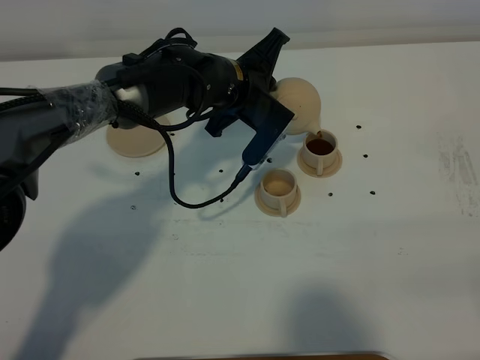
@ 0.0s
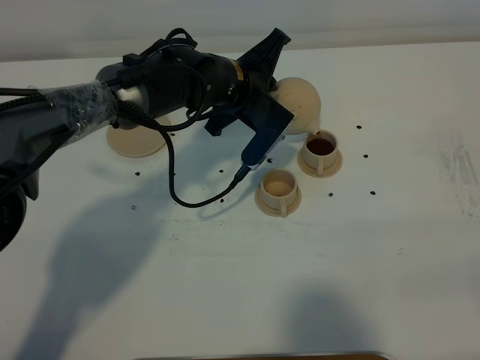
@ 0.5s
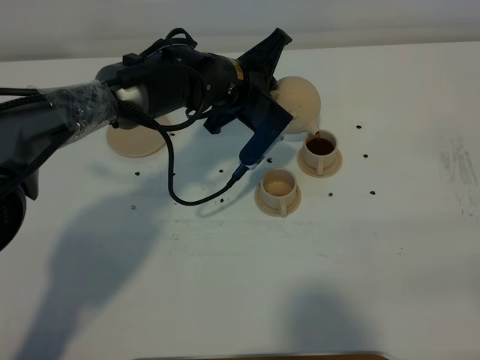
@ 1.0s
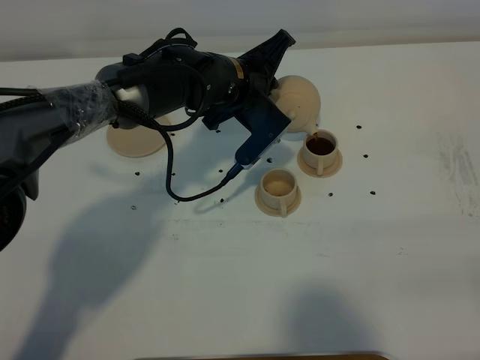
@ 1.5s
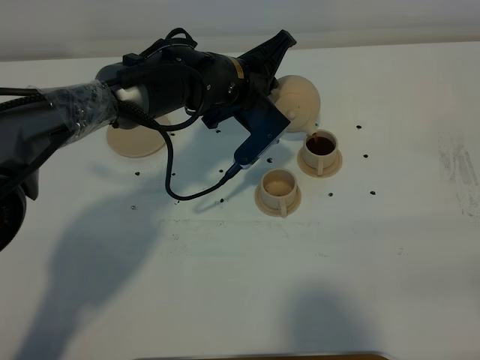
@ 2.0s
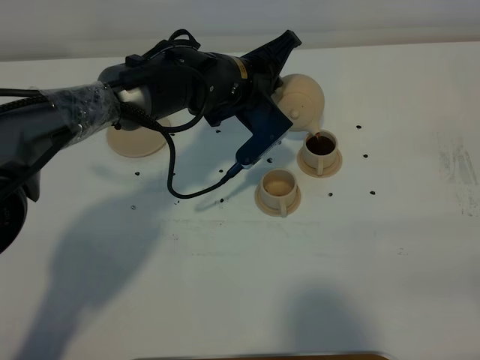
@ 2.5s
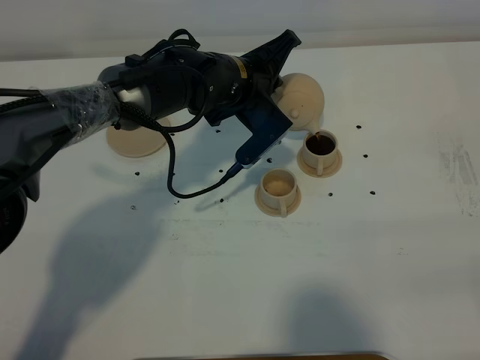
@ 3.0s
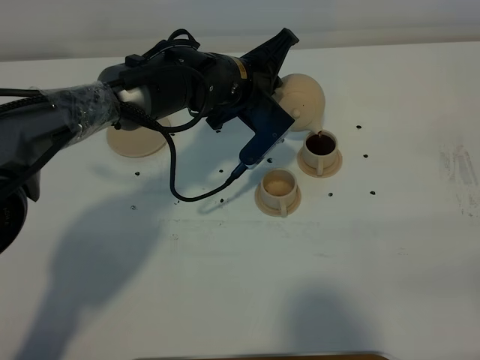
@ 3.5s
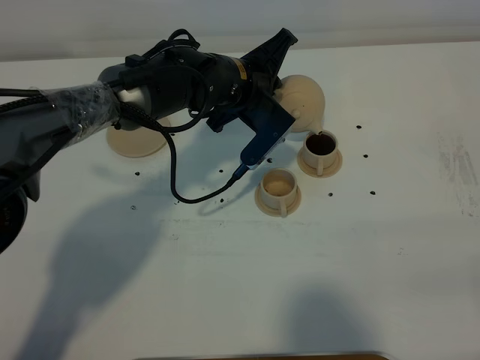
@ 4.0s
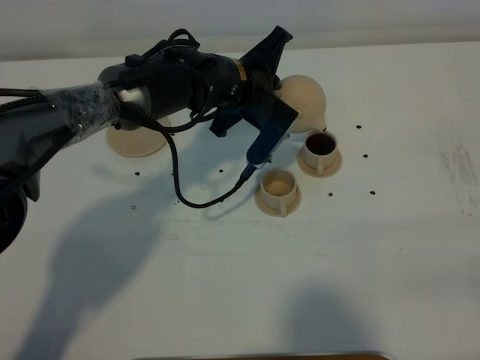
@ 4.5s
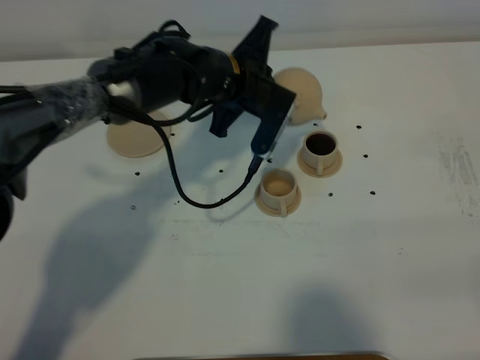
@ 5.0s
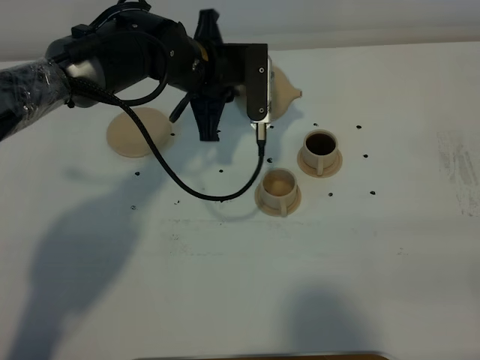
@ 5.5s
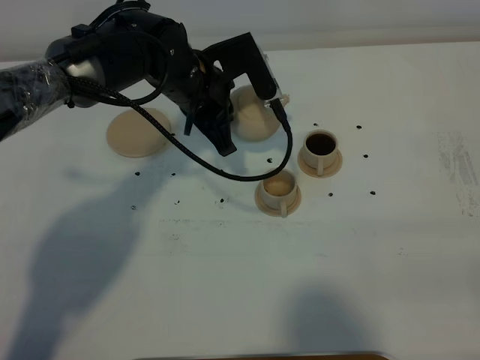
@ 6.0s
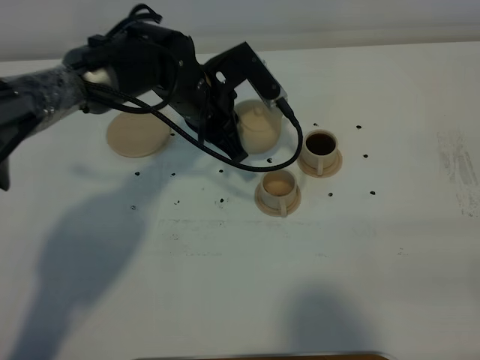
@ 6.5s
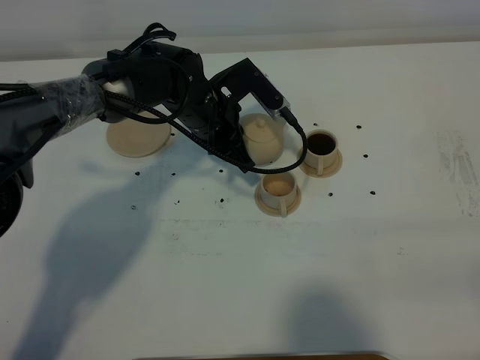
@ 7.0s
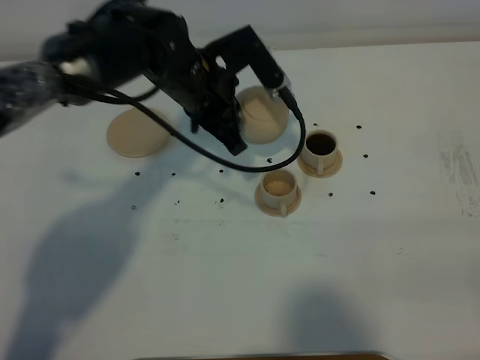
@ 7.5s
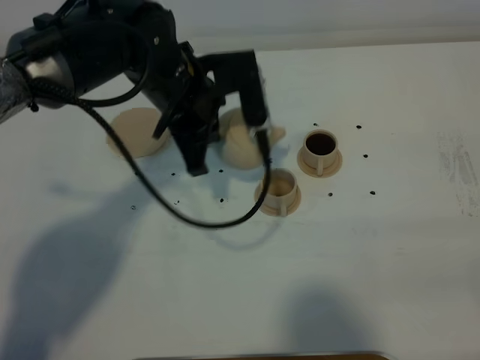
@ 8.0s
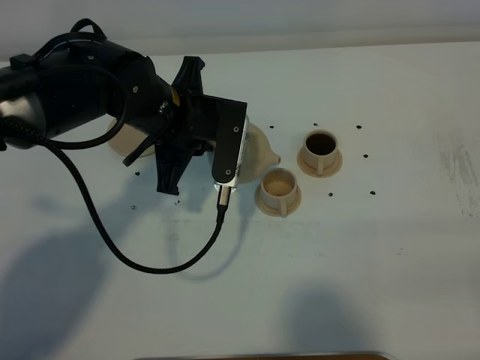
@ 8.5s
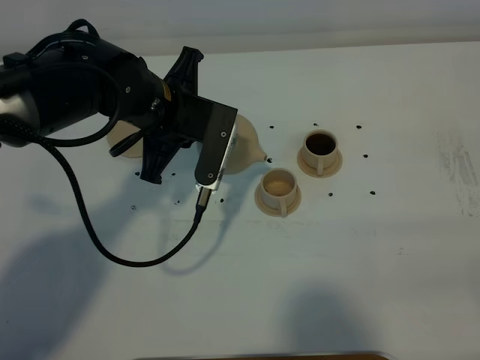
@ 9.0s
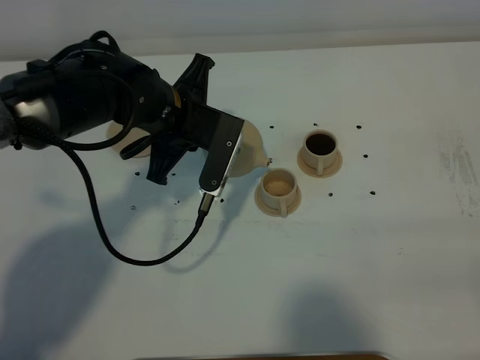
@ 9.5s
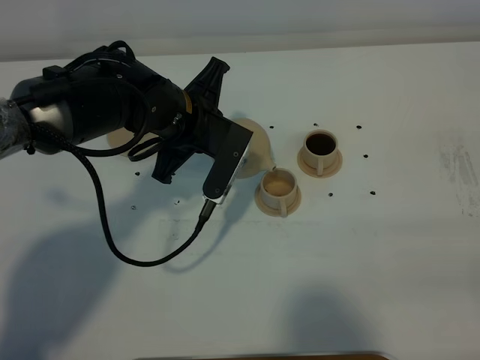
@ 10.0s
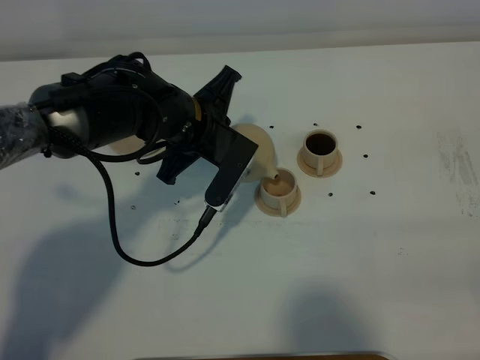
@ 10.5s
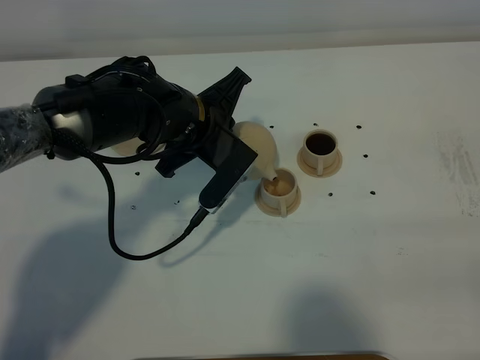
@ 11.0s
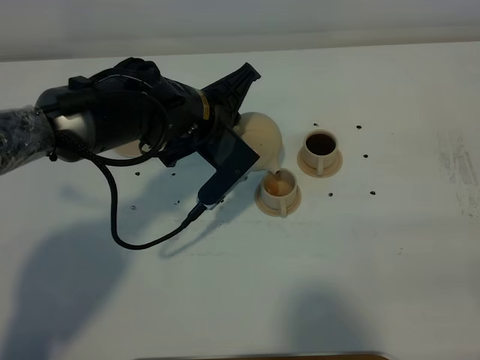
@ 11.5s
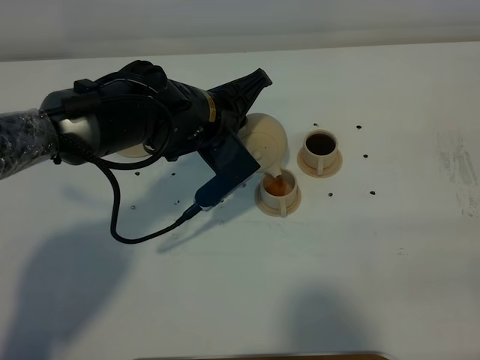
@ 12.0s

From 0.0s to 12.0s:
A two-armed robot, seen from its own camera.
Task of the whole recording: grasp the brown teapot and pour the tea into the two brown teacups one by one, put the brown teapot back in its original place.
From 0.0s to 2.0s: The grippers stay close to where they were, moving slightly.
From 2.0s to 4.0s: Neither gripper changes place.
From 4.0s to 6.0s: The left gripper changes place by roughly 5 cm.
From 6.0s to 8.0s: The left gripper shifts by some 5 cm.

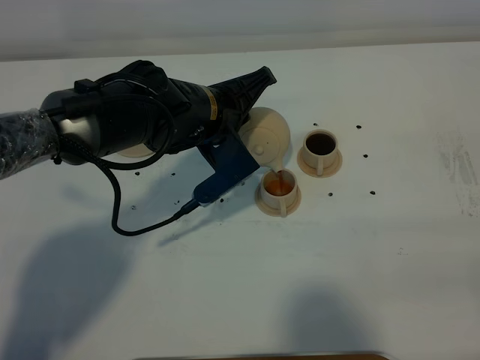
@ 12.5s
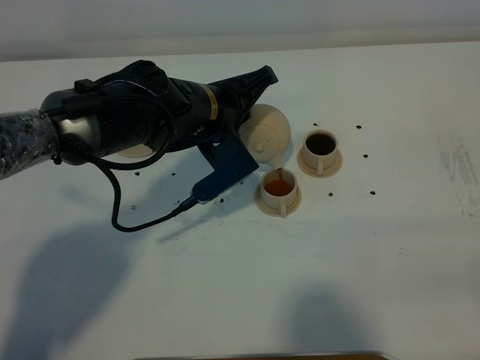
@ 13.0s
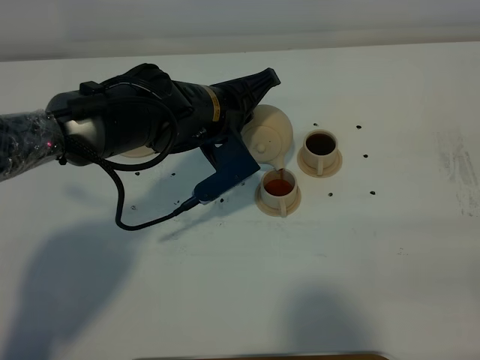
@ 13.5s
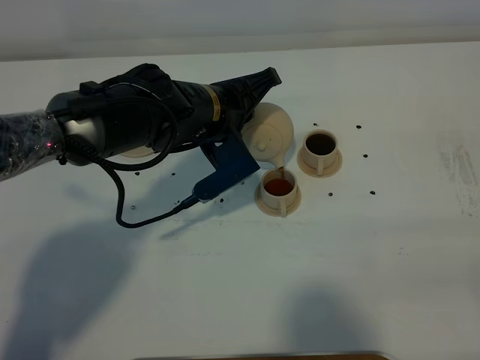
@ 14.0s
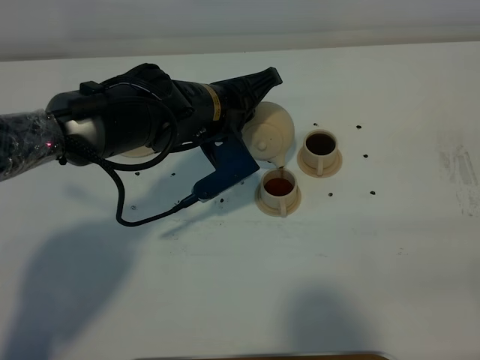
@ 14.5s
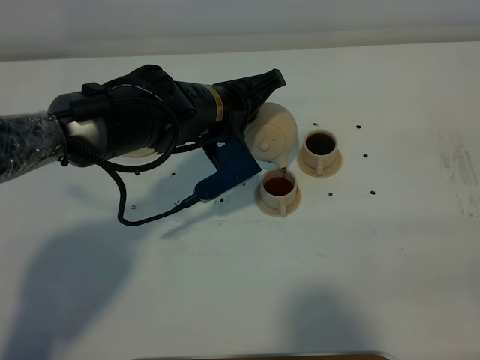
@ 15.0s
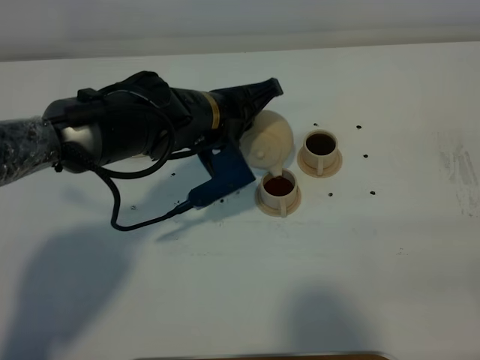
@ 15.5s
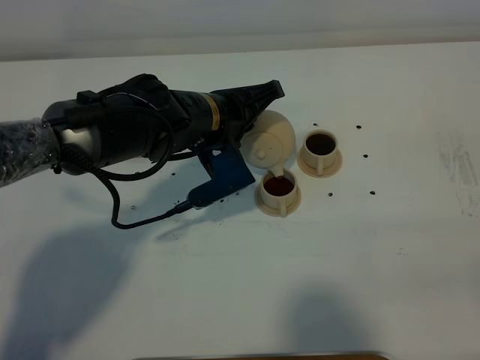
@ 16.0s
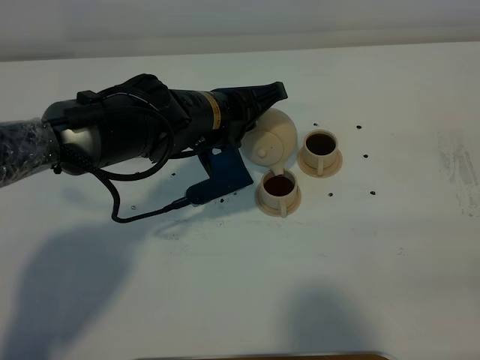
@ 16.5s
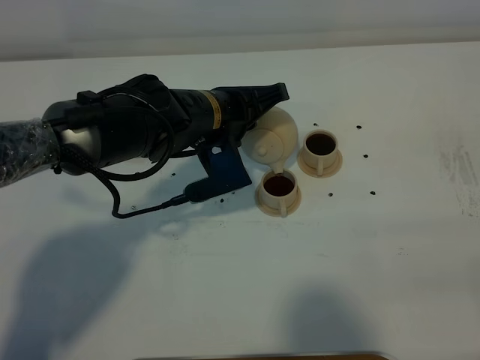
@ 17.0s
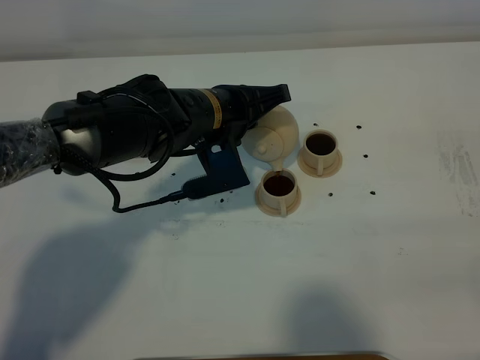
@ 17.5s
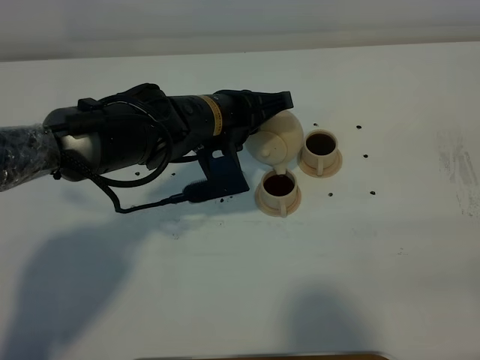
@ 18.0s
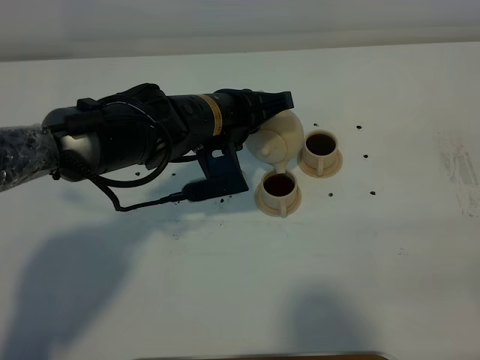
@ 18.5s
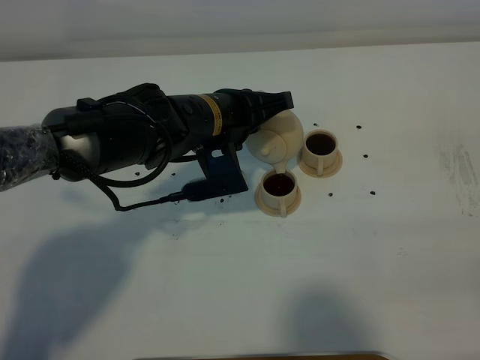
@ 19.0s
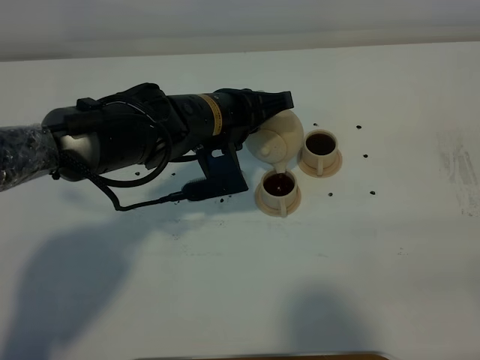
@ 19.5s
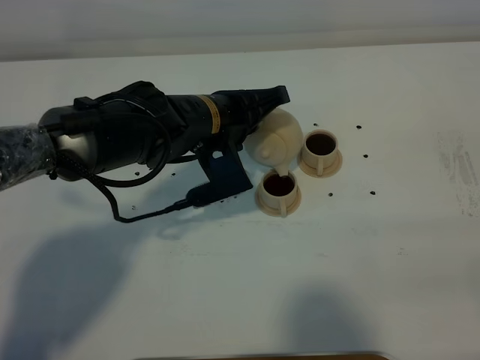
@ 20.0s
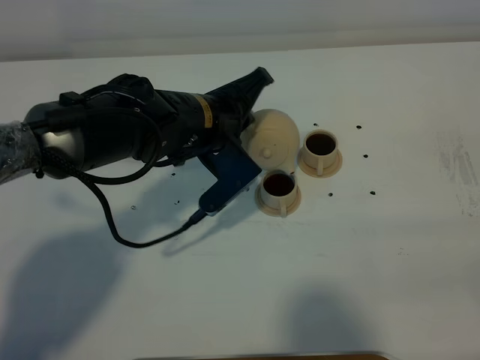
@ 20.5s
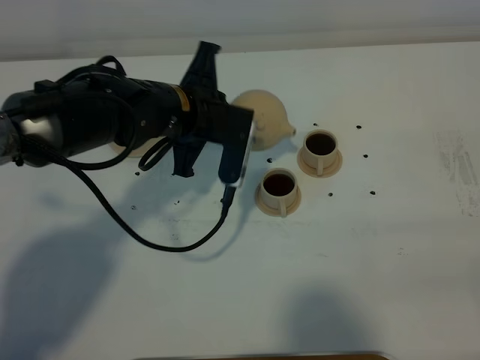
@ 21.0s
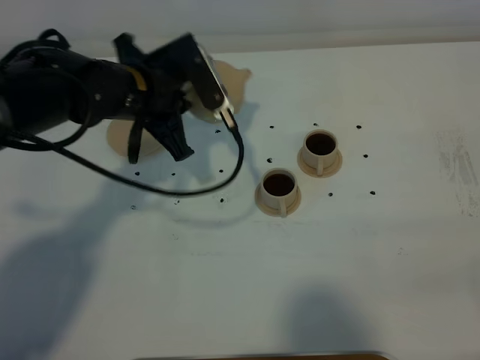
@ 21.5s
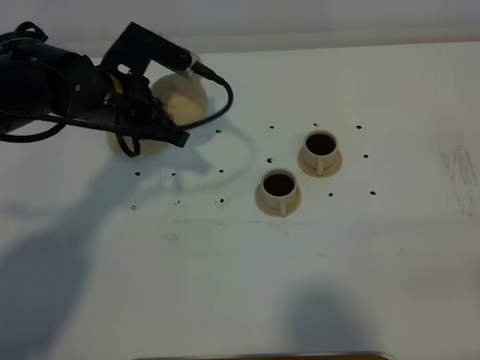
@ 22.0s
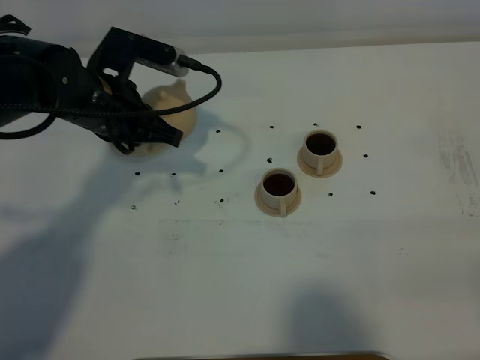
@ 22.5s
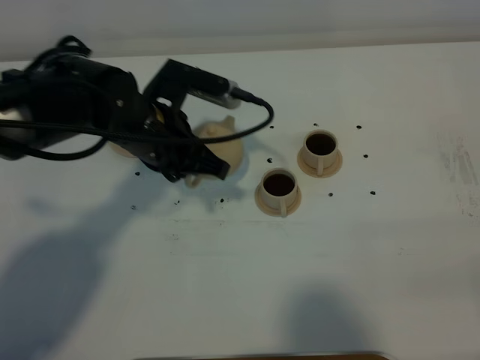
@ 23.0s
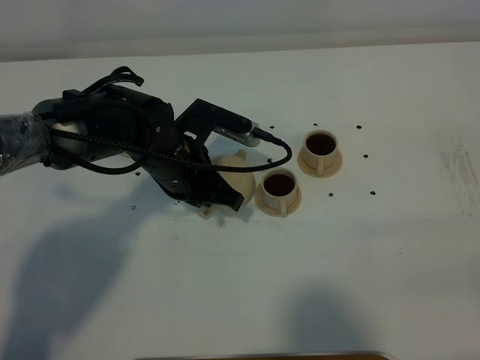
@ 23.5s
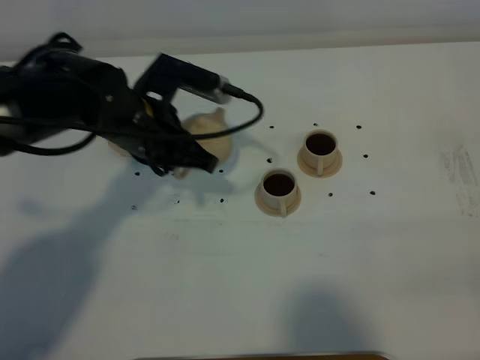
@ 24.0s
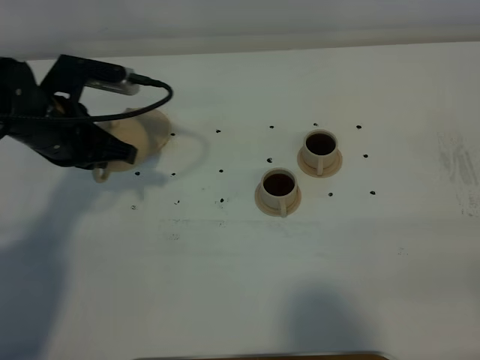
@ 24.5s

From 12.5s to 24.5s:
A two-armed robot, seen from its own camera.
Task of the whole recording: grasp the brown teapot and pour the tea into the two brown teacups one by one, put the brown teapot back in its original place.
Step, from 12.5s to 20.0s: Pour tea into the teacup with the left gripper.
From 12.5s to 16.5s: The grippers stay close to where they were, moving slightly.
From 16.5s to 18.5s: The grippers move only a little.
From 20.5s to 22.5s: The left gripper moves to the left, approximately 10 cm.
From 22.5s to 24.5s: The left gripper heads to the left, covering about 5 cm.

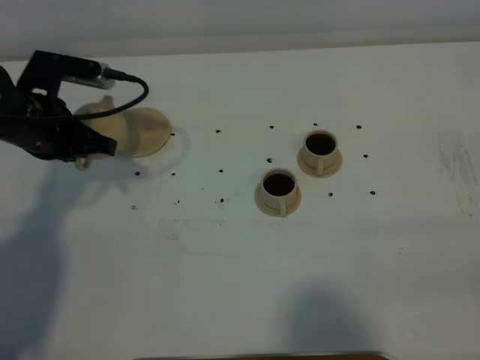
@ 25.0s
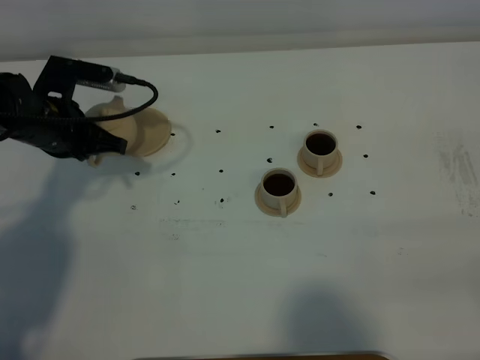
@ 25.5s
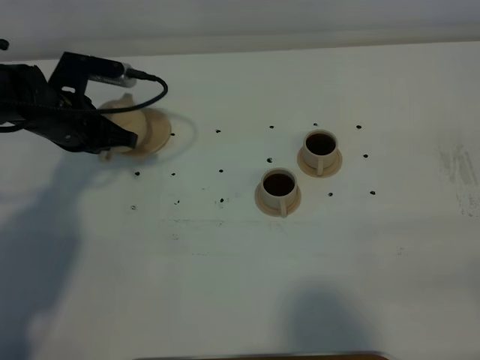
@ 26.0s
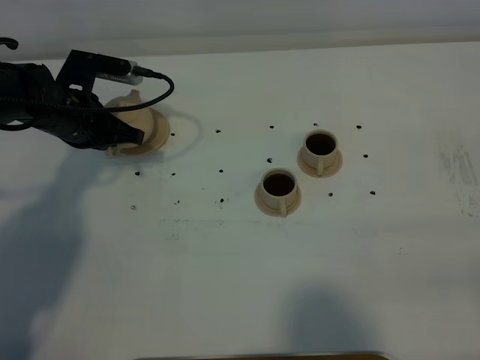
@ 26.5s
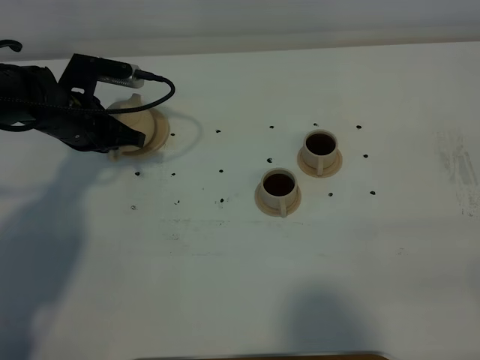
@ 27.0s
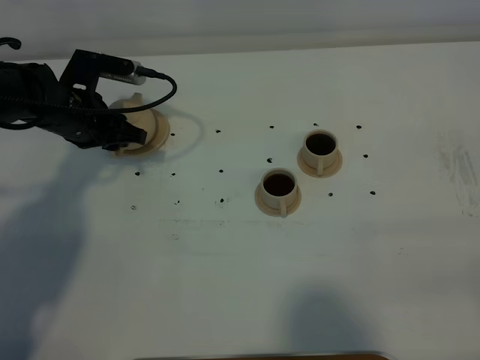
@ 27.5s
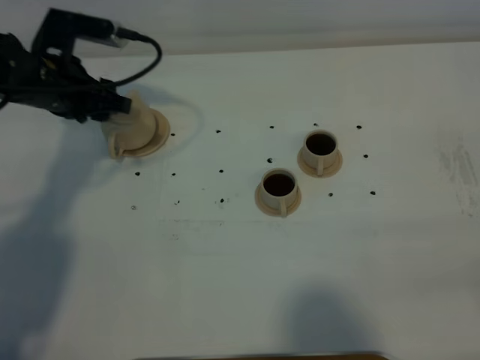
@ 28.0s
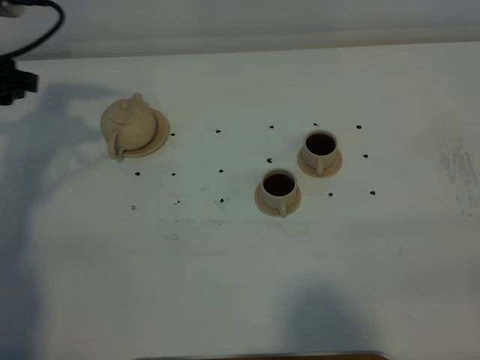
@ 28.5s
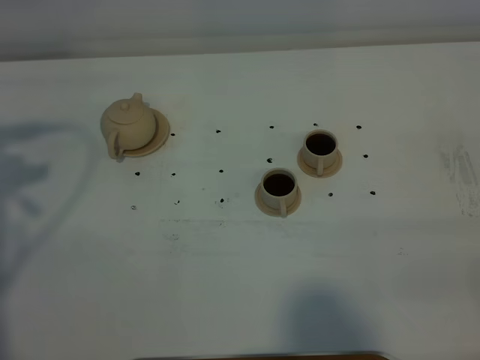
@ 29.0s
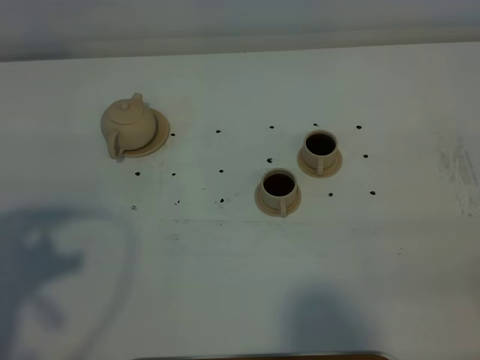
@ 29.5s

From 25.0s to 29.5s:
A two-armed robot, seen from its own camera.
Task of the whole recording: grasp the brown teapot and pour the tea into the two brown teacups one by one, put the brown teapot back in its original place.
From 25.0s to 27.0s: The left gripper changes place by approximately 5 cm.
From 27.0s to 29.5s: The left gripper moves backward and upward, roughly 35 cm, and opens.
